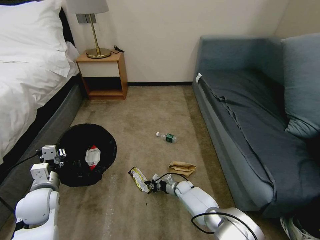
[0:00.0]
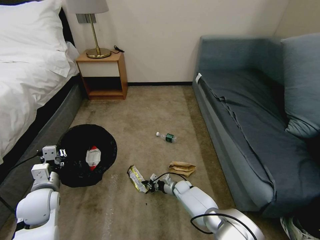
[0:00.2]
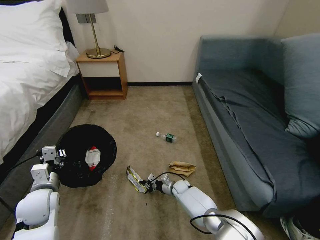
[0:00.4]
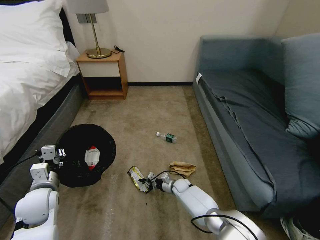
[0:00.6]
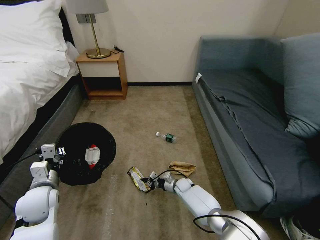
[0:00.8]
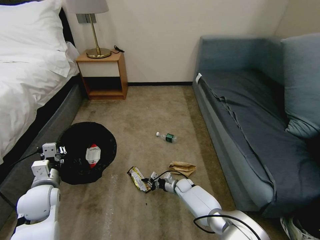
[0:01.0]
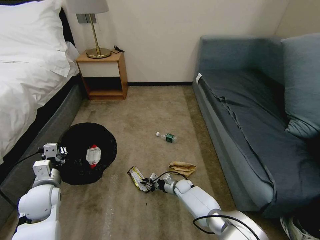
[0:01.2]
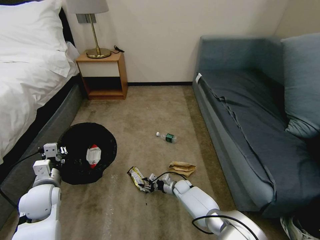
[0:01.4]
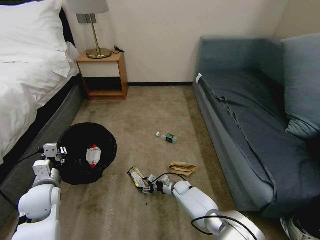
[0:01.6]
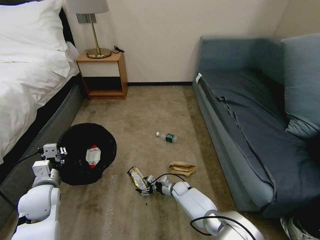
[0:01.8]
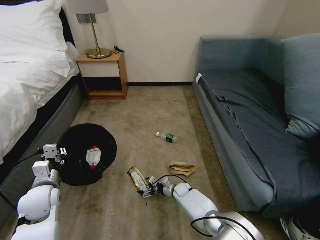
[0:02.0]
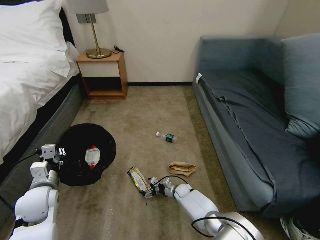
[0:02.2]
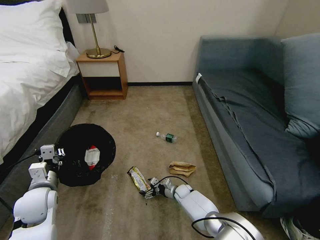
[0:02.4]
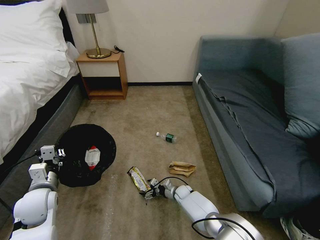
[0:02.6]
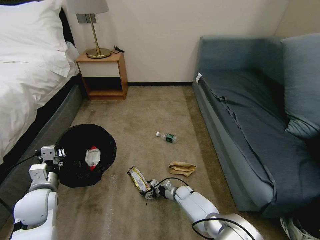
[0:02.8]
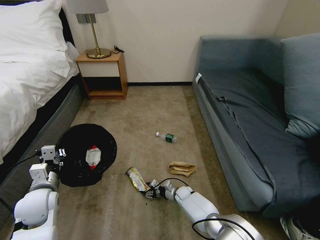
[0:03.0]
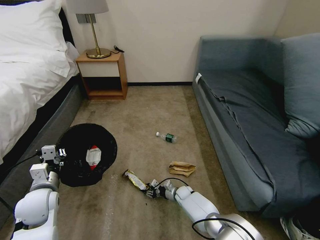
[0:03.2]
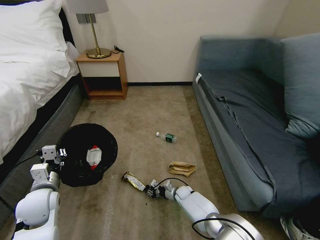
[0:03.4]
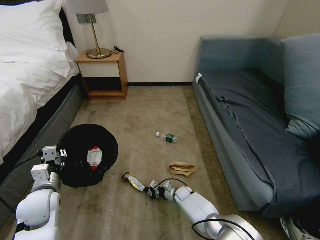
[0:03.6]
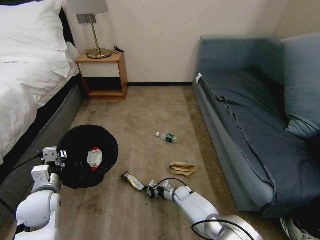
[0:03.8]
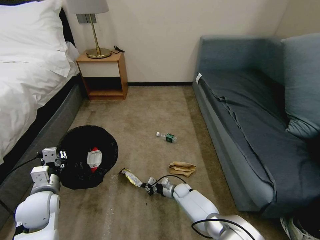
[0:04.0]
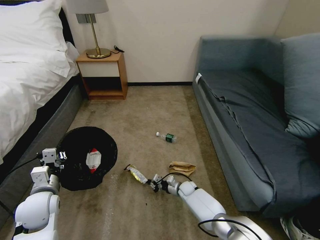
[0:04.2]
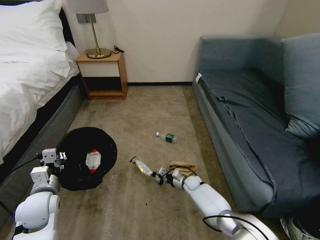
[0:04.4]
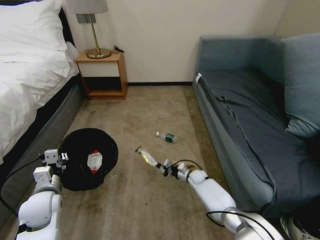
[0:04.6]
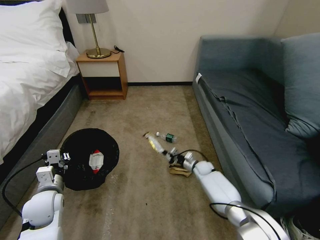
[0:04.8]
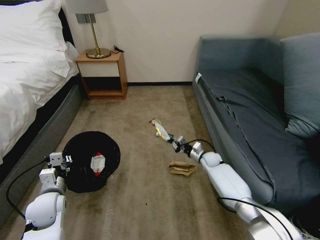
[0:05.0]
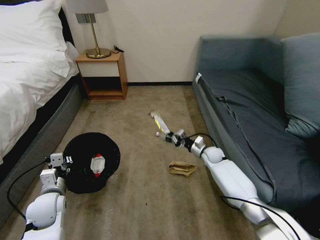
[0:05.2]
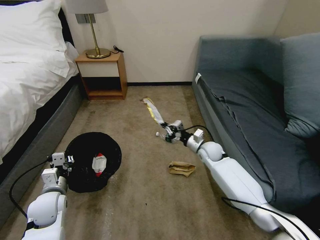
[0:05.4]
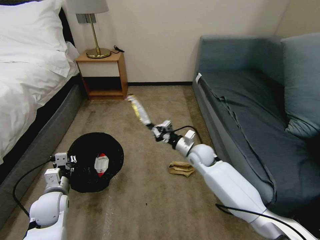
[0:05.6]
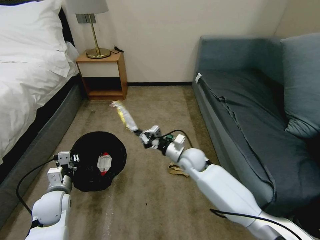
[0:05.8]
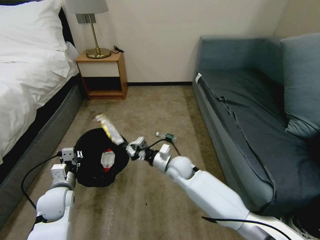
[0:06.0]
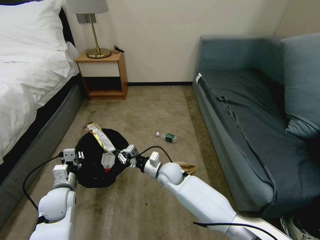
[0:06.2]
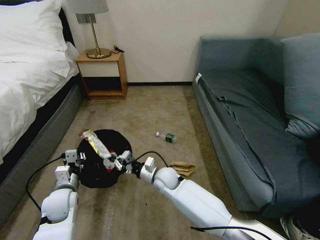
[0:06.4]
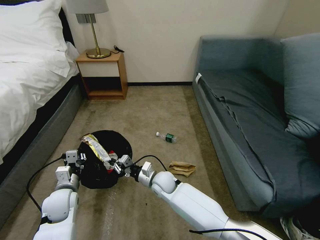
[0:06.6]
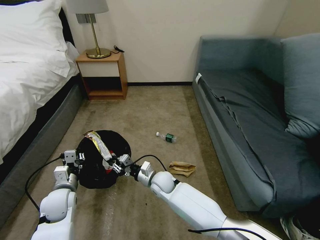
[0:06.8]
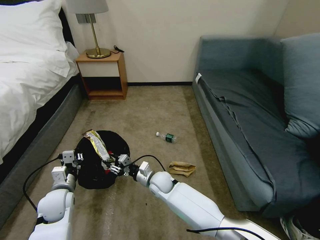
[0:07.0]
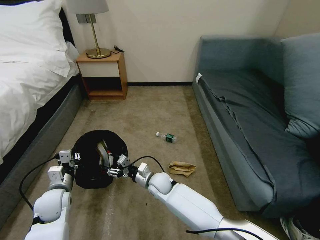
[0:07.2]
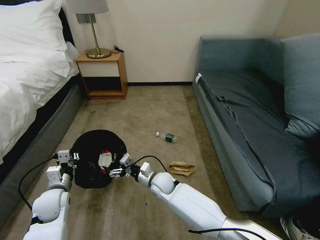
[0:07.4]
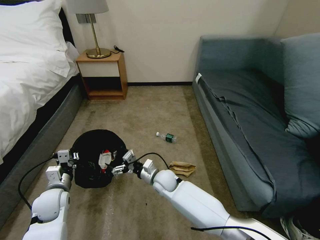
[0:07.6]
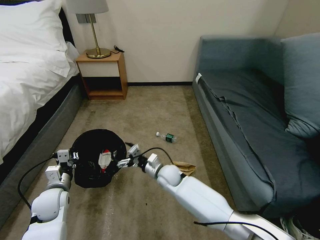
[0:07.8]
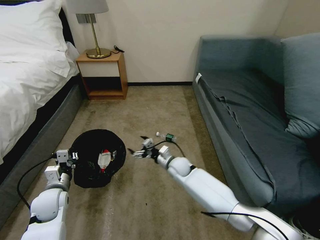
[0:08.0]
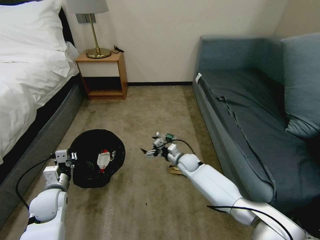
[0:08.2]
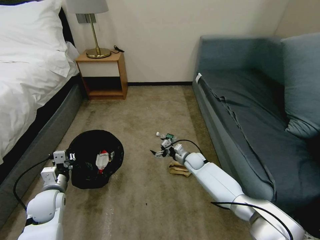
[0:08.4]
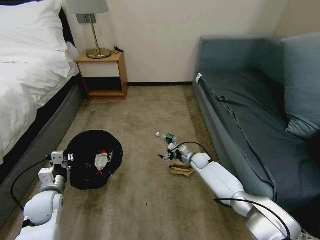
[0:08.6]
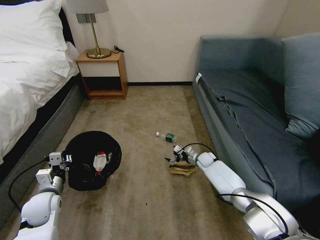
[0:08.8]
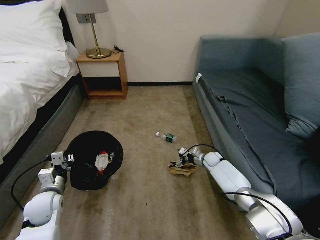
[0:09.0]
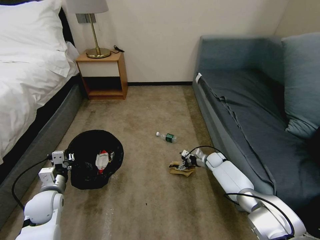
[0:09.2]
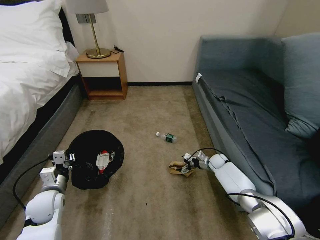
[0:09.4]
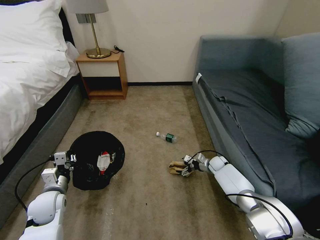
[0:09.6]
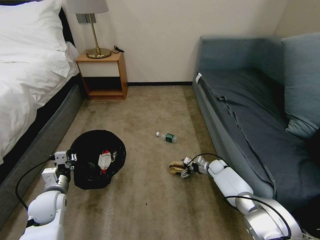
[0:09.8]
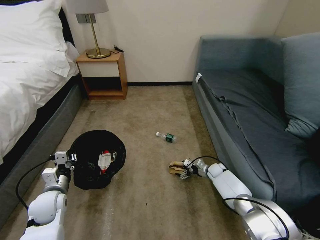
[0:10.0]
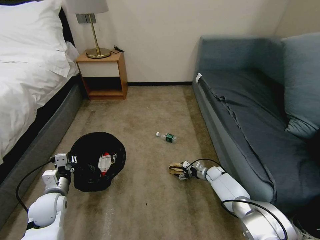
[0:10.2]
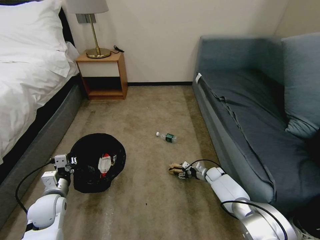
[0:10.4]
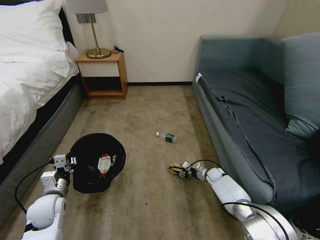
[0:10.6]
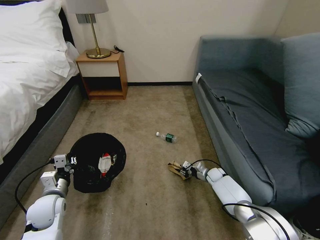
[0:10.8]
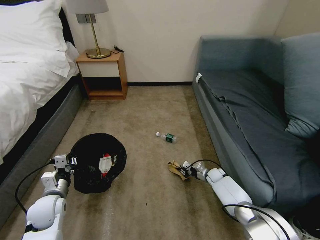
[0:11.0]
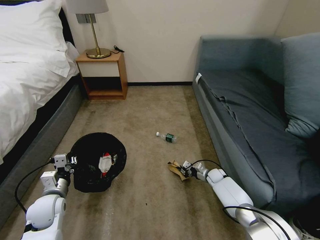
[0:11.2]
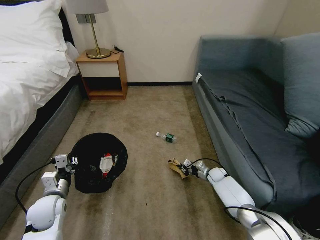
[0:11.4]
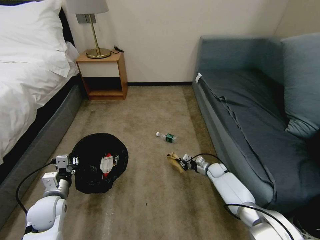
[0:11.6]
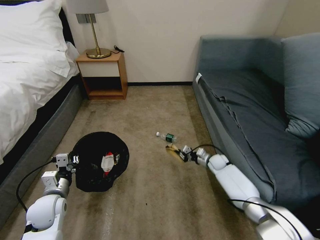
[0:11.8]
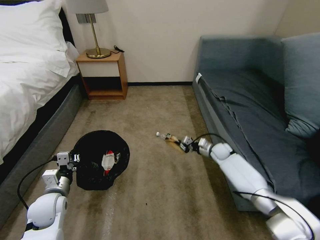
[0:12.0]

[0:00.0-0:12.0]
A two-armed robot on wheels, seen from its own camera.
Task of the whole recording: Pick up the trash bin, then pick up the garbage on the floor and place it into the trash bin.
0:00.0 to 0:01.6: The right gripper opens up.
0:01.6 to 0:03.0: The right gripper opens and closes again.
0:03.0 to 0:04.4: The right gripper shifts by some 5 cm, and closes.
0:04.4 to 0:06.0: The right gripper goes some 25 cm upward and to the left.
0:06.0 to 0:07.6: The right gripper moves downward and to the left, roughly 10 cm, and opens.
0:07.6 to 0:09.0: The right gripper heads to the right and forward, covering about 30 cm.
0:09.0 to 0:10.4: The right gripper moves downward, about 5 cm.
0:10.4 to 0:12.0: The right gripper shifts some 15 cm upward and forward, and closes up.

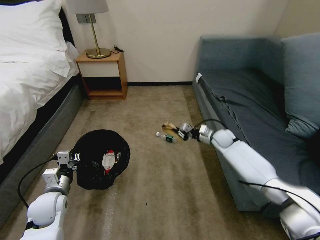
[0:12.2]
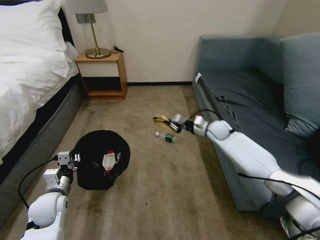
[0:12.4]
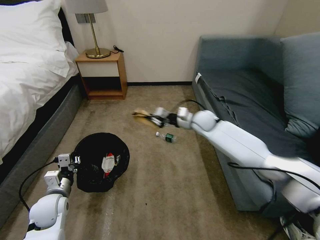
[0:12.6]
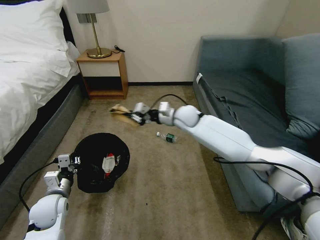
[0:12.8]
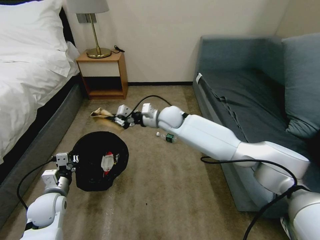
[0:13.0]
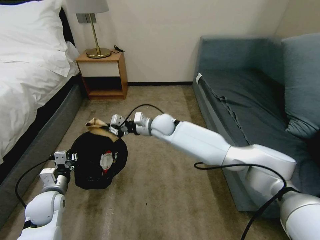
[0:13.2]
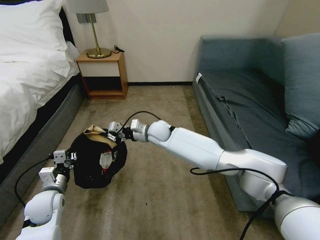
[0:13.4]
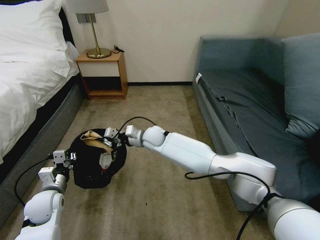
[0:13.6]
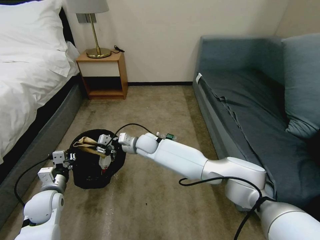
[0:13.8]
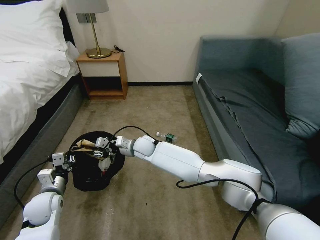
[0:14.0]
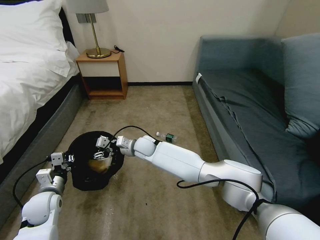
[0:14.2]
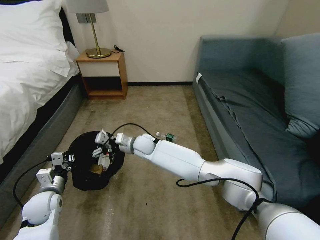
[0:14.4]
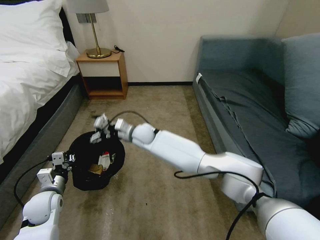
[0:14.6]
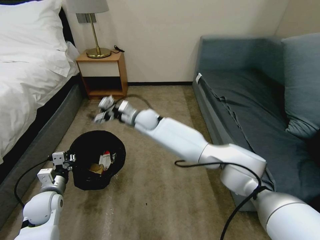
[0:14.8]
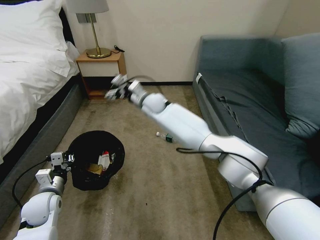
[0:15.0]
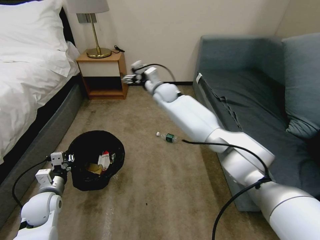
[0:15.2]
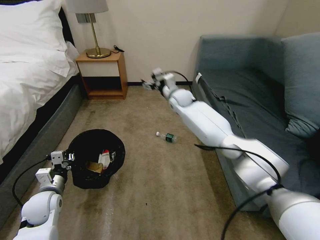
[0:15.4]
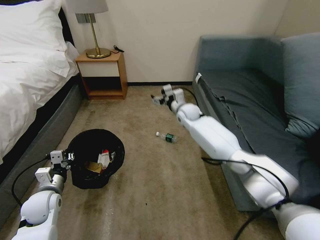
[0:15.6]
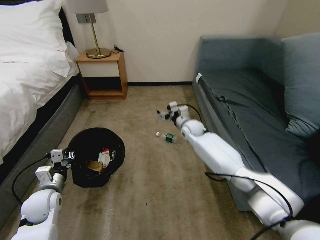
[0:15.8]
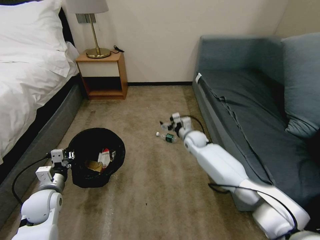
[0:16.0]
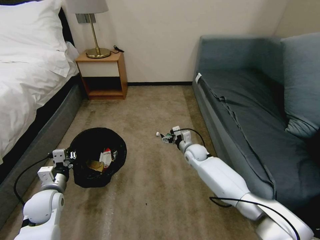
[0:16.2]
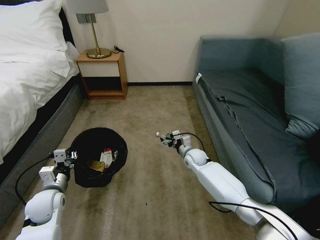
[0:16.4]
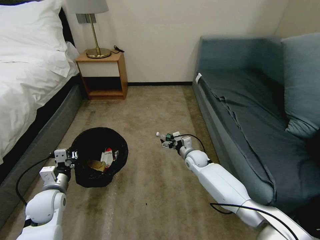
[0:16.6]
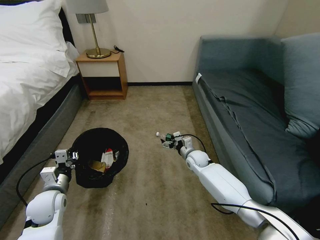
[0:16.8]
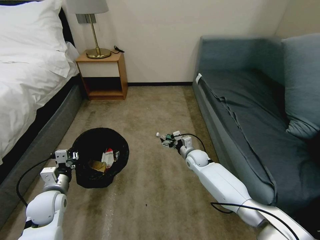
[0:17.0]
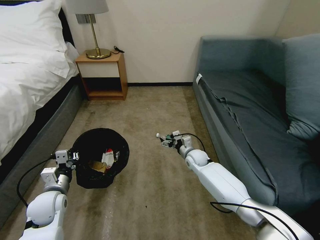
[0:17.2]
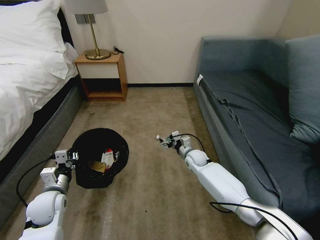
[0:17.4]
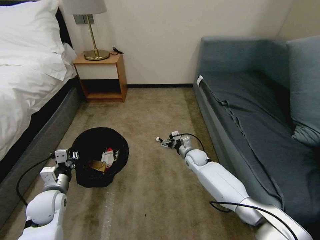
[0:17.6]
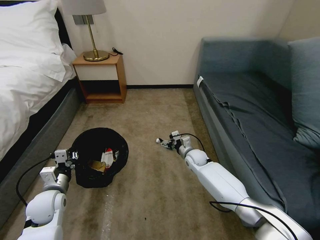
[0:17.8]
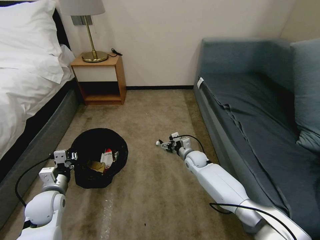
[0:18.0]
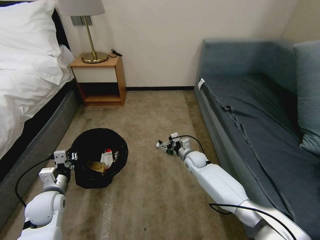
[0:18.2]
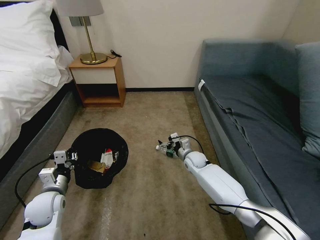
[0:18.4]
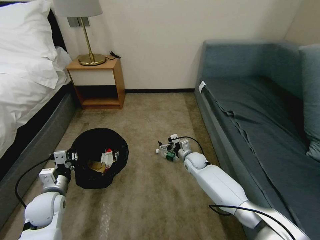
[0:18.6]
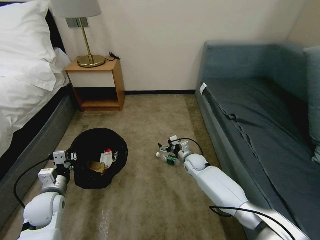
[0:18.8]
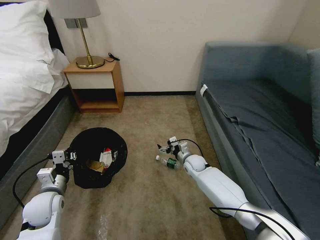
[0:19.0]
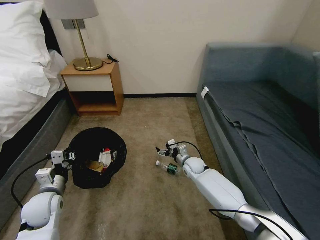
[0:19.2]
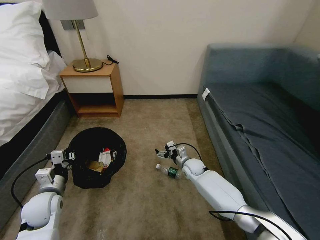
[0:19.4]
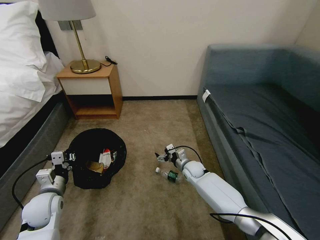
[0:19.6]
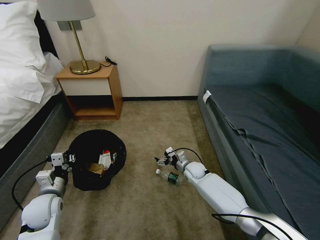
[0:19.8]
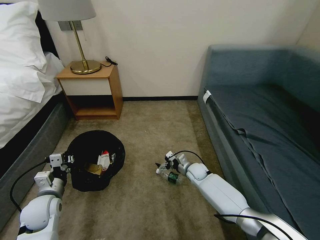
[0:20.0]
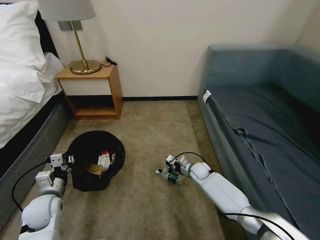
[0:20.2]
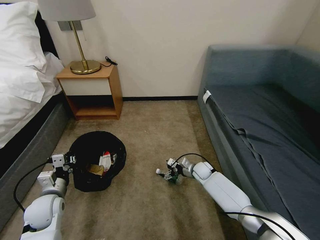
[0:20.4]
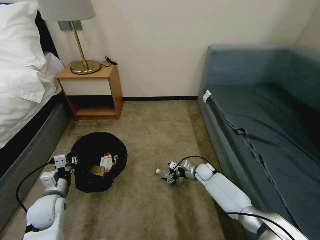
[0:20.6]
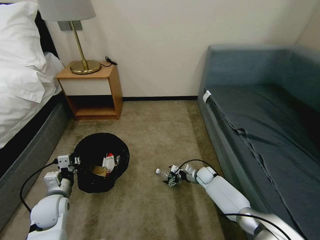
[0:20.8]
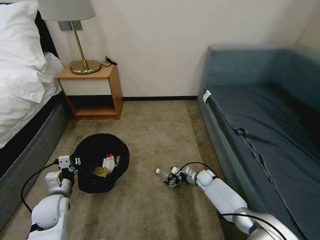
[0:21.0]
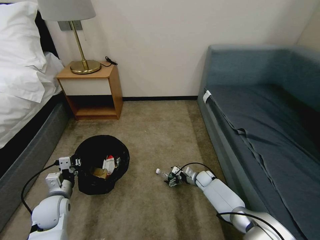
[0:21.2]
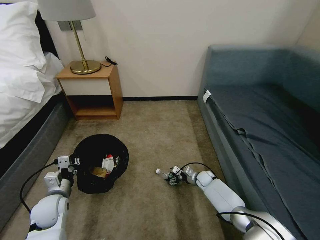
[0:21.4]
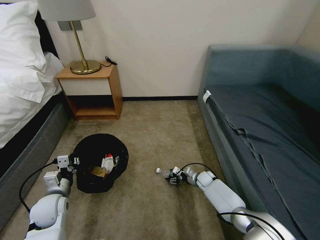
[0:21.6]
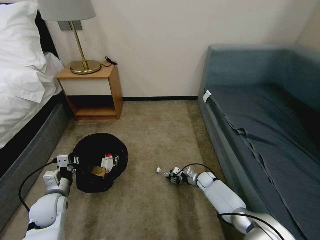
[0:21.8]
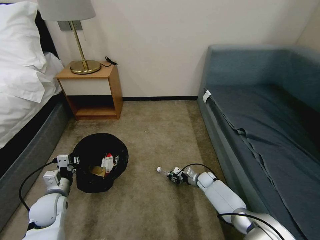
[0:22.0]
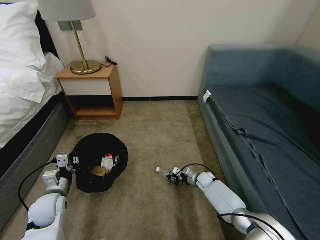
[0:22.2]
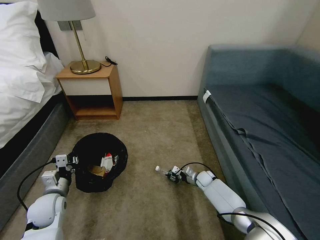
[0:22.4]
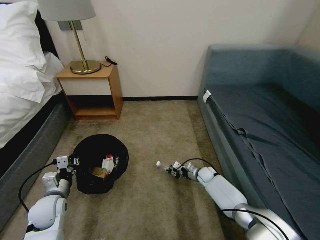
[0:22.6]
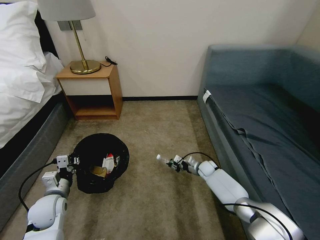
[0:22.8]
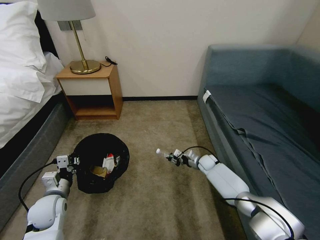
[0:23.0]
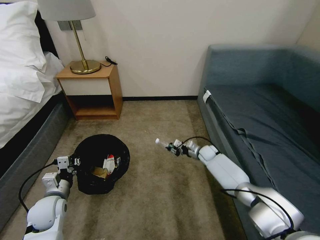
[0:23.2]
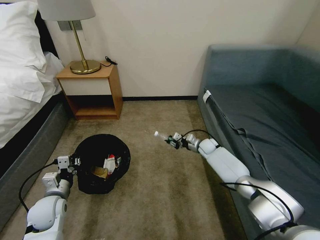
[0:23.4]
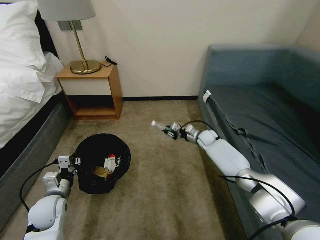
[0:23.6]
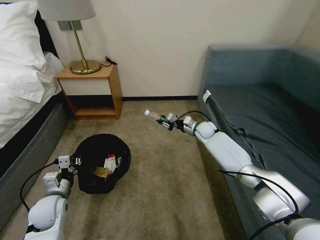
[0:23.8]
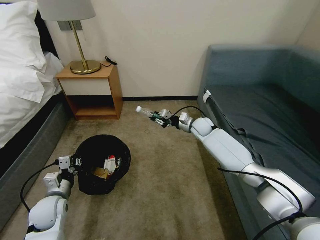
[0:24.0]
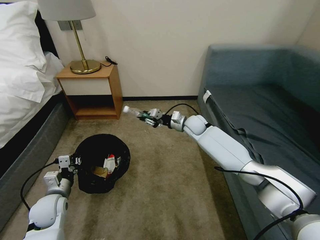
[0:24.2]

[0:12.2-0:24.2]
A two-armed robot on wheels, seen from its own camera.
Task of the whole recording: Pick up the trash bin, then pick up the garbage on the floor and place it into the trash bin.
0:12.2 to 0:13.8: The right gripper heads to the left, covering roughly 35 cm.
0:13.8 to 0:15.2: The right gripper travels upward, forward and to the right by about 20 cm, and opens up.
0:15.2 to 0:16.6: The right gripper shifts some 35 cm downward, to the right and backward.
0:16.6 to 0:18.2: Both grippers stay put.
0:18.2 to 0:19.8: The right gripper ends up about 5 cm from where it was.
0:19.8 to 0:21.2: The right gripper travels downward and to the right by about 10 cm.
0:21.2 to 0:22.6: The right gripper closes up.
0:22.6 to 0:24.2: The right gripper shifts roughly 30 cm upward and forward.
